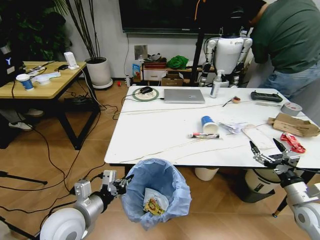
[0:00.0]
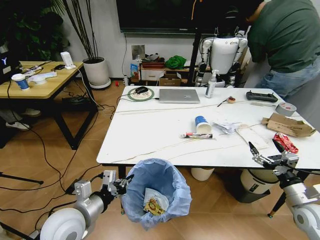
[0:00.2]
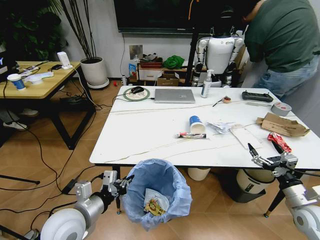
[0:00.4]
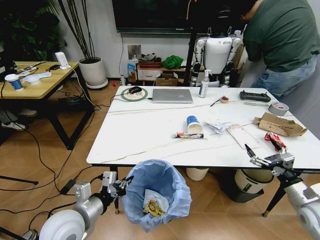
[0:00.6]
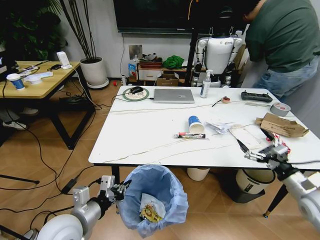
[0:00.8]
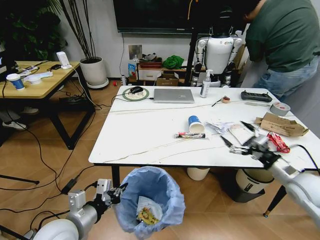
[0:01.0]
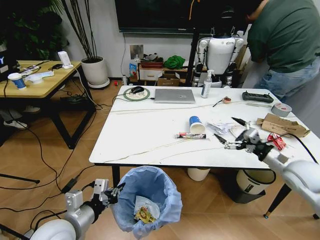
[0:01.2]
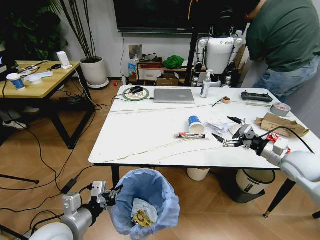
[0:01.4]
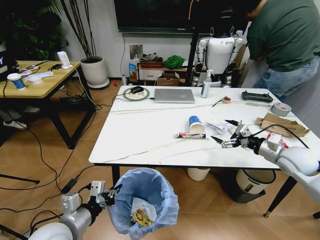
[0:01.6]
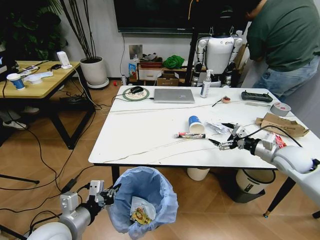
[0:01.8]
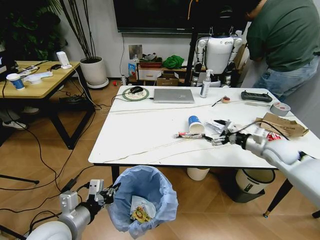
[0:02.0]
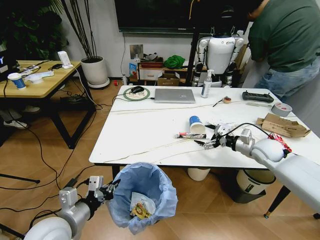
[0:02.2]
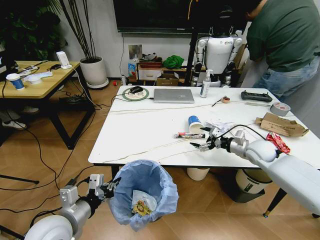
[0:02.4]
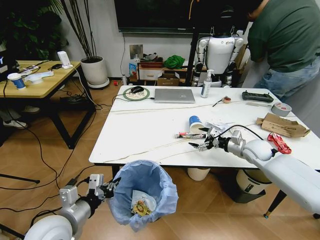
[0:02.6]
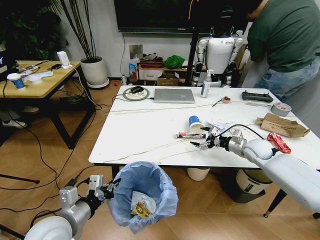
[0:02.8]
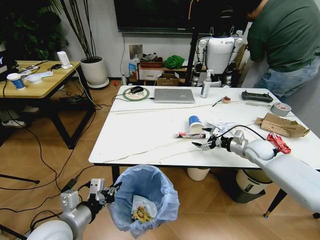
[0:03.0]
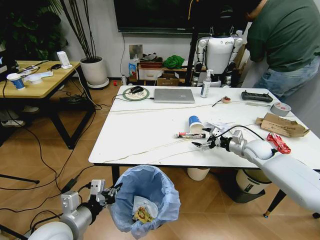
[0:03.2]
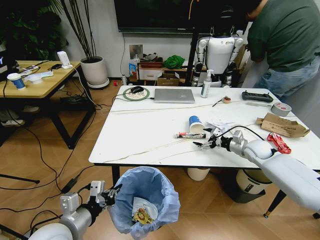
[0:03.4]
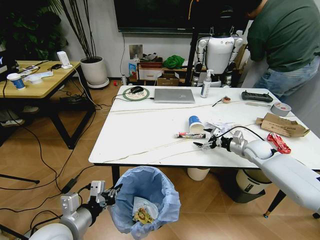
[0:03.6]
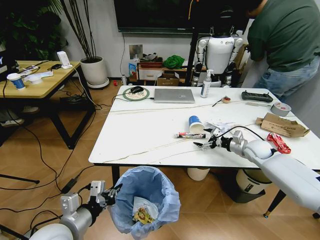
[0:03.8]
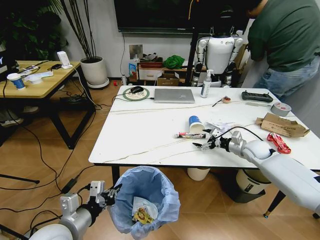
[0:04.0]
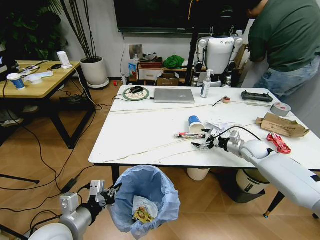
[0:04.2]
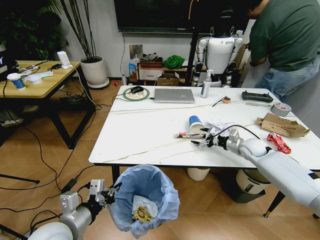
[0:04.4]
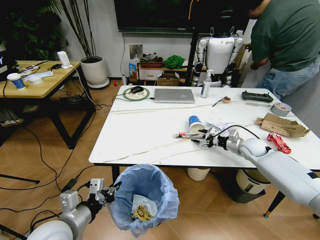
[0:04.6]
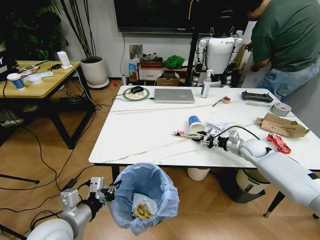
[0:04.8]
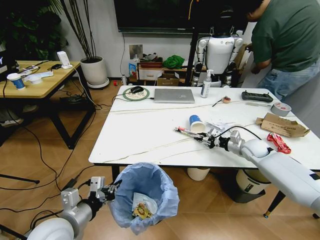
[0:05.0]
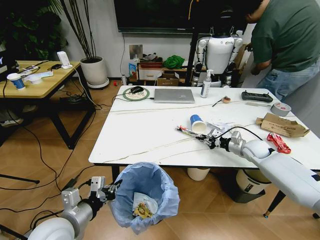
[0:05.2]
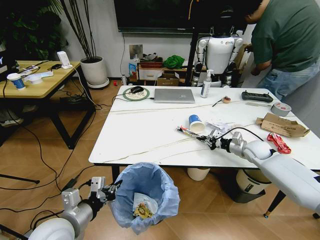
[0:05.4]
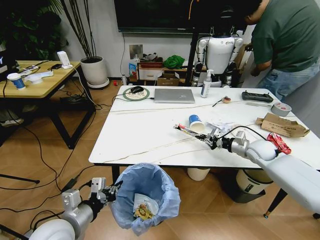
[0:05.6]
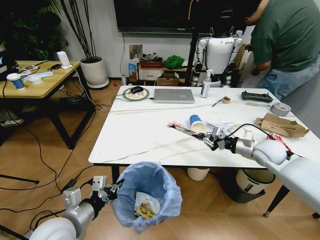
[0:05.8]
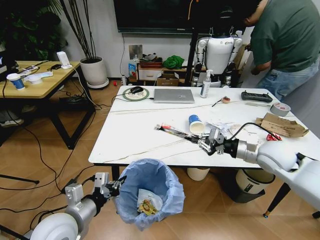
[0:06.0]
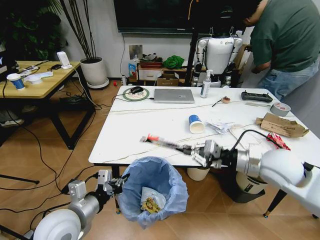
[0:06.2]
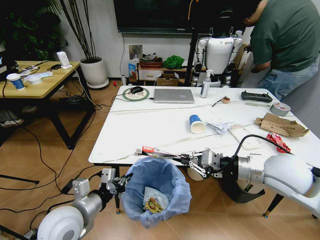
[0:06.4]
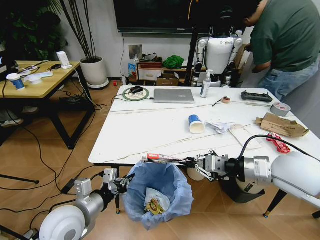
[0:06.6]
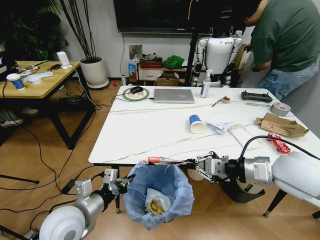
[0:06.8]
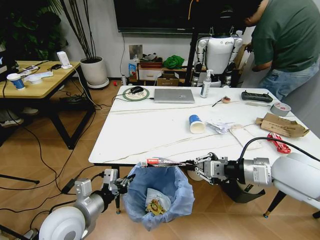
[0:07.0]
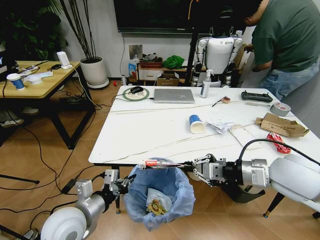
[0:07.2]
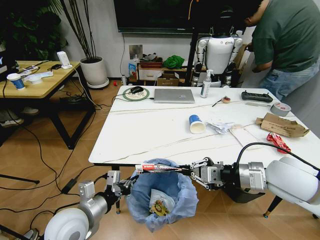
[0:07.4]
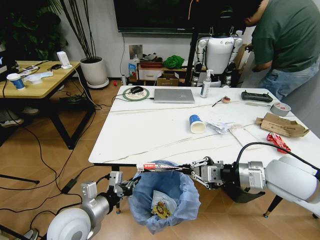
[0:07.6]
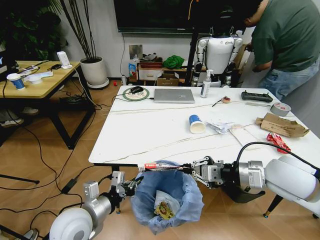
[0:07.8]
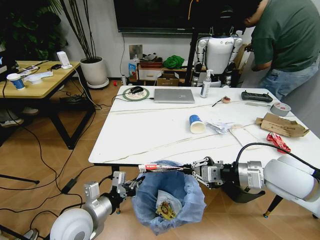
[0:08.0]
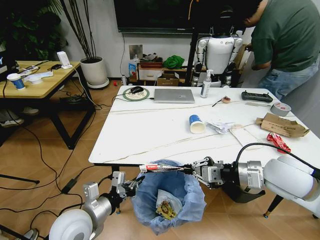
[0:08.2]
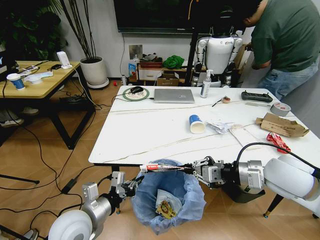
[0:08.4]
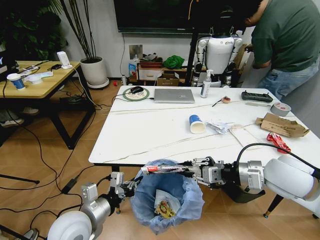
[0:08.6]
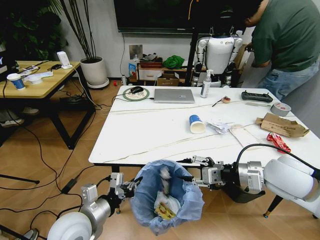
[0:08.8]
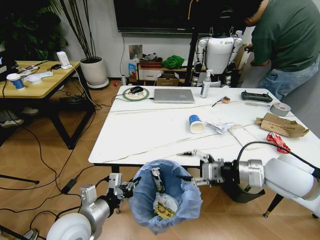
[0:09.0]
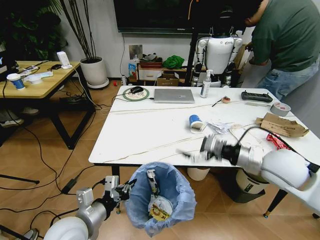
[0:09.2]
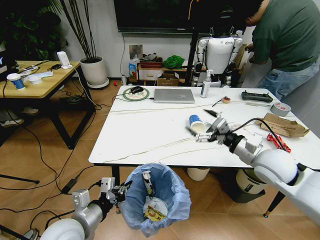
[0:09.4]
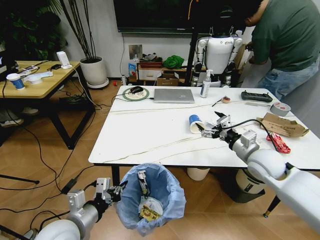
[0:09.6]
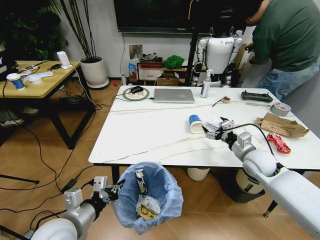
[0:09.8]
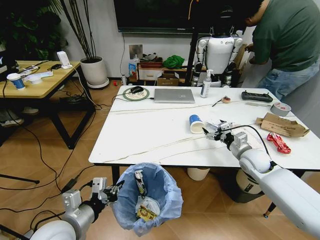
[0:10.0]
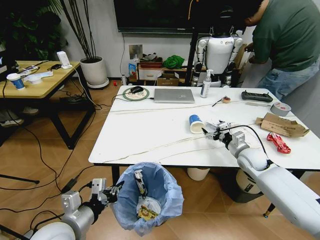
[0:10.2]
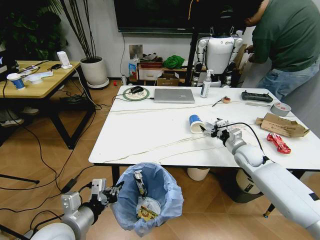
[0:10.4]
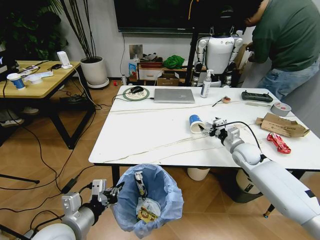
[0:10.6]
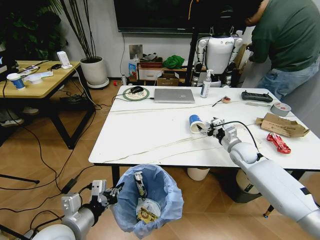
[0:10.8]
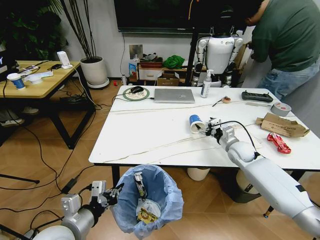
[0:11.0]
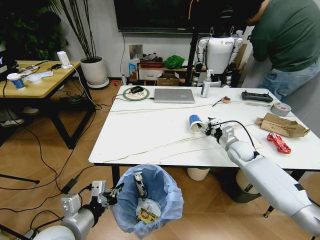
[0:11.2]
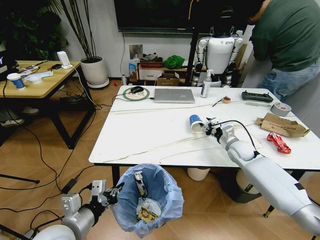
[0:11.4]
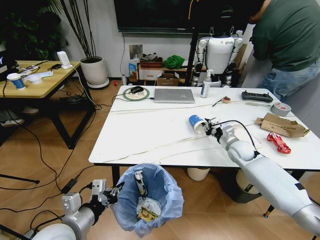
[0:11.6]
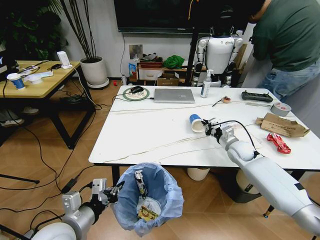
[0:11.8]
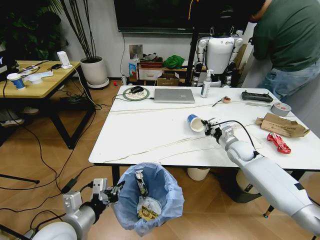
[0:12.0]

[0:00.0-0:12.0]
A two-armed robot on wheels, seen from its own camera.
Task of the whole recording: Pick up the trash bin and place the trash from the table into it.
0:00.0 to 0:01.6: The right gripper is displaced forward and upward by some 15 cm.
0:01.6 to 0:03.0: The right gripper moves forward and downward, some 10 cm.
0:03.0 to 0:04.4: There are only small adjustments of the grippers.
0:04.4 to 0:06.0: The right gripper heads upward and backward, covering about 20 cm, and closes.
0:06.0 to 0:07.6: The right gripper shifts some 10 cm backward.
0:07.6 to 0:09.0: The right gripper opens its fingers.
0:09.0 to 0:10.4: The right gripper is displaced forward and downward by approximately 20 cm.
0:10.4 to 0:12.0: The right gripper closes up.

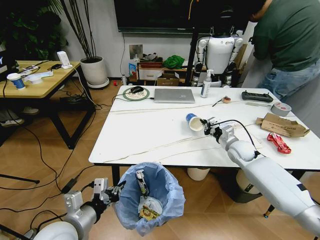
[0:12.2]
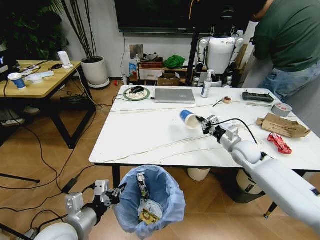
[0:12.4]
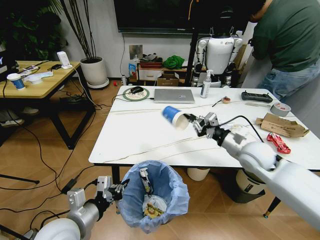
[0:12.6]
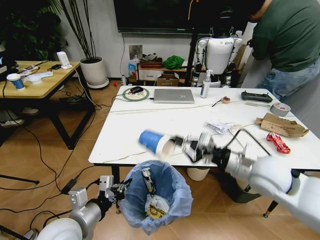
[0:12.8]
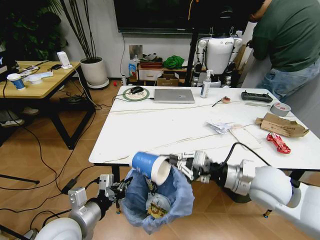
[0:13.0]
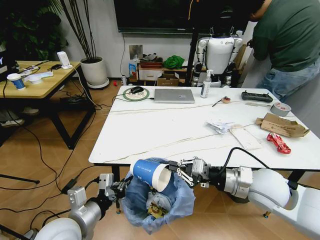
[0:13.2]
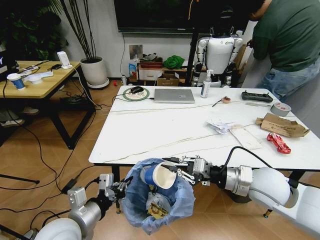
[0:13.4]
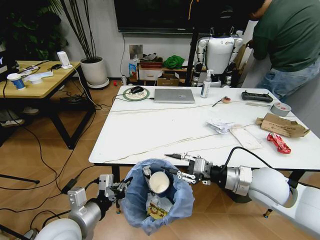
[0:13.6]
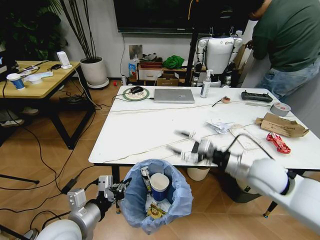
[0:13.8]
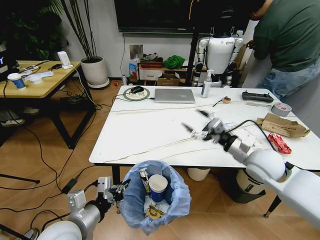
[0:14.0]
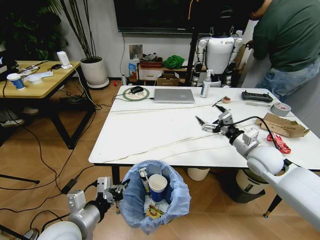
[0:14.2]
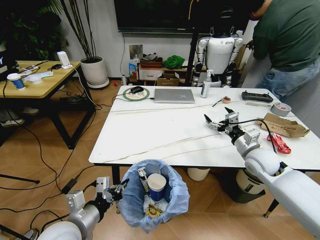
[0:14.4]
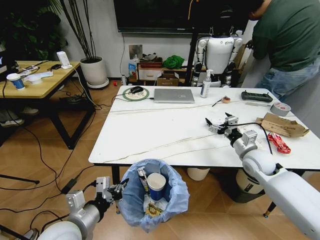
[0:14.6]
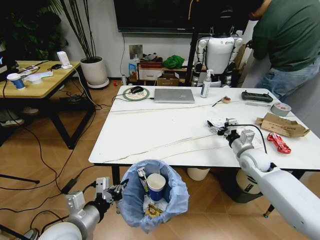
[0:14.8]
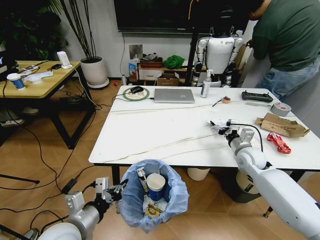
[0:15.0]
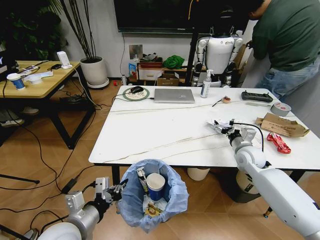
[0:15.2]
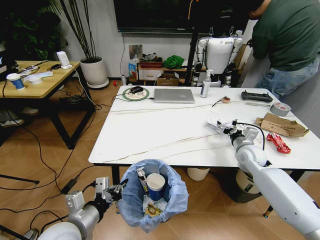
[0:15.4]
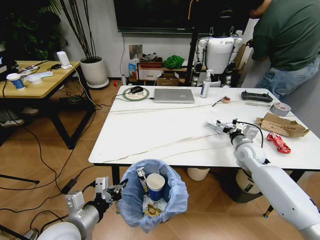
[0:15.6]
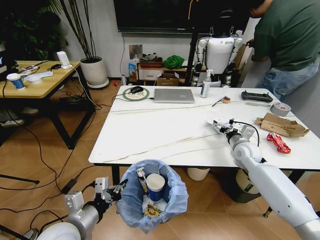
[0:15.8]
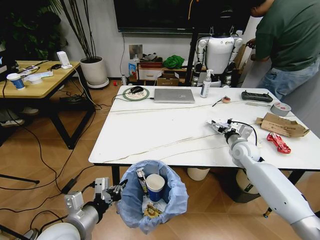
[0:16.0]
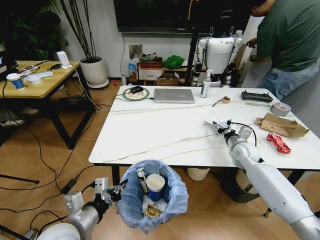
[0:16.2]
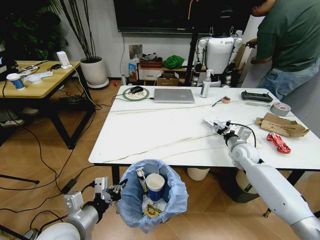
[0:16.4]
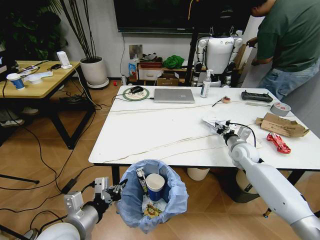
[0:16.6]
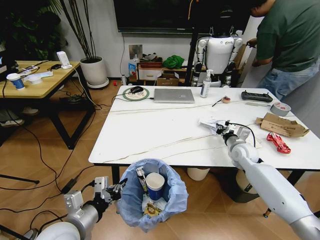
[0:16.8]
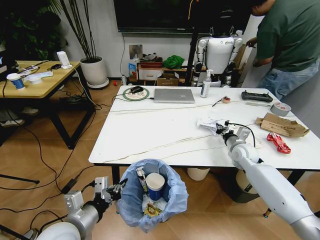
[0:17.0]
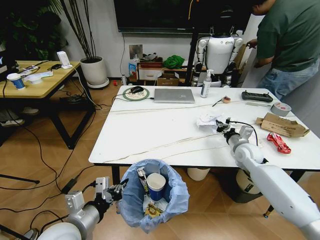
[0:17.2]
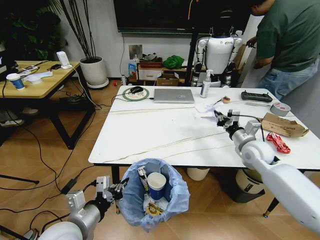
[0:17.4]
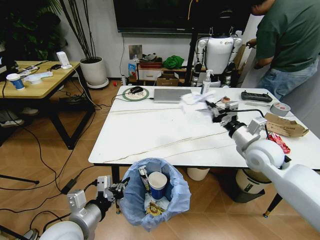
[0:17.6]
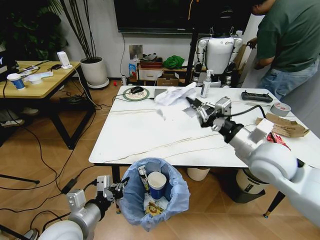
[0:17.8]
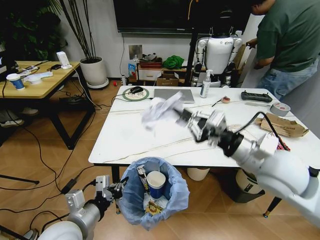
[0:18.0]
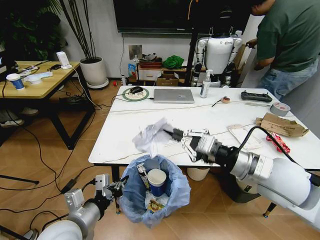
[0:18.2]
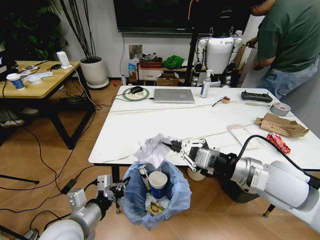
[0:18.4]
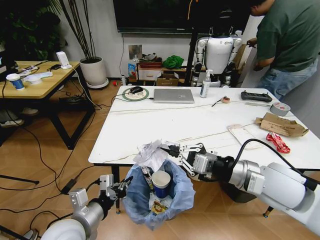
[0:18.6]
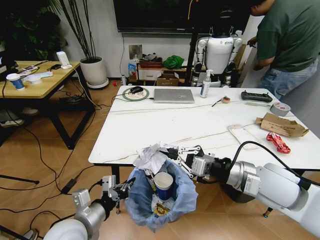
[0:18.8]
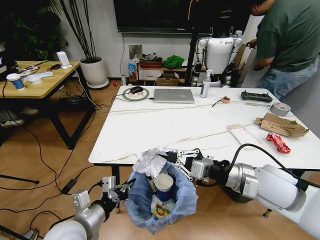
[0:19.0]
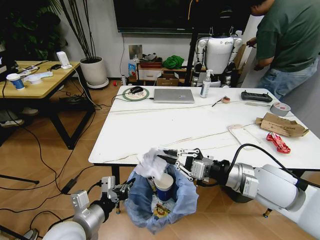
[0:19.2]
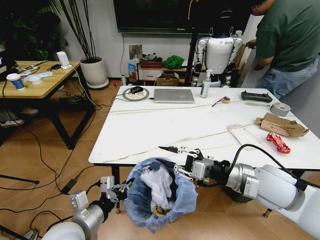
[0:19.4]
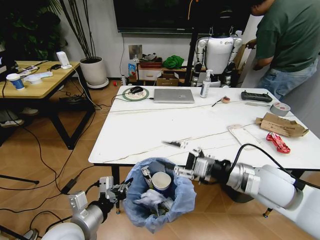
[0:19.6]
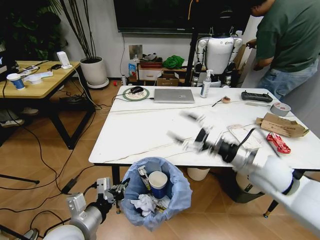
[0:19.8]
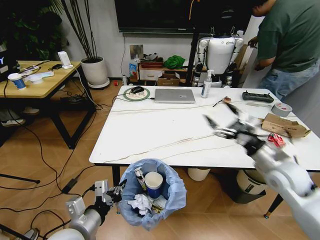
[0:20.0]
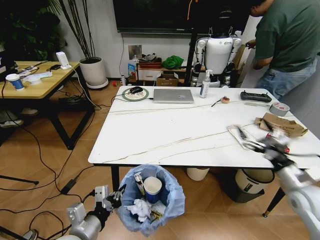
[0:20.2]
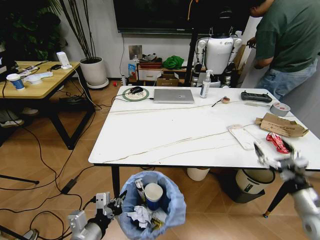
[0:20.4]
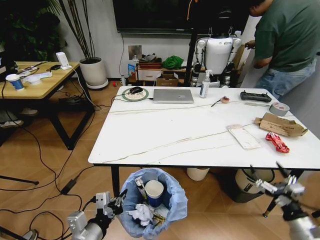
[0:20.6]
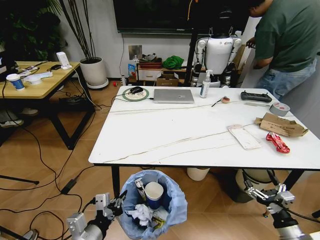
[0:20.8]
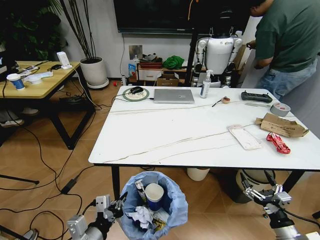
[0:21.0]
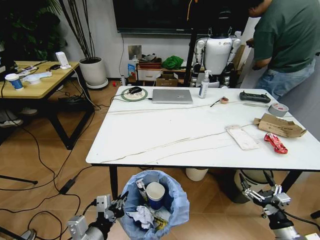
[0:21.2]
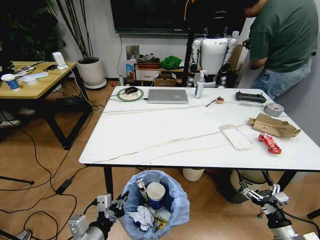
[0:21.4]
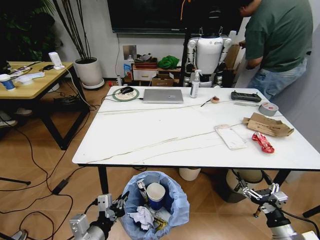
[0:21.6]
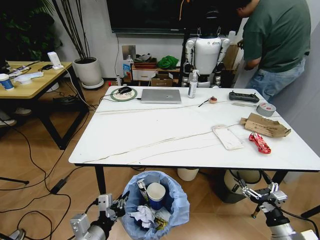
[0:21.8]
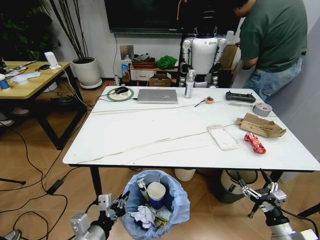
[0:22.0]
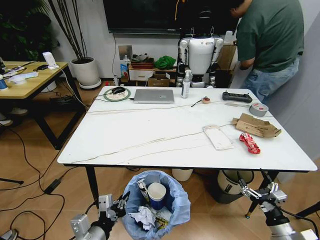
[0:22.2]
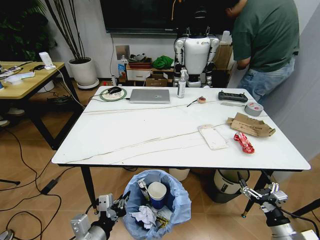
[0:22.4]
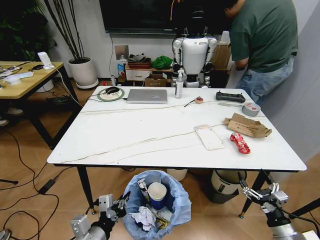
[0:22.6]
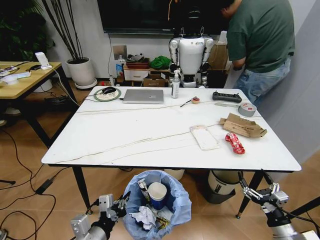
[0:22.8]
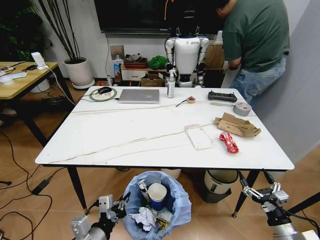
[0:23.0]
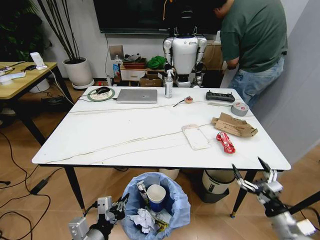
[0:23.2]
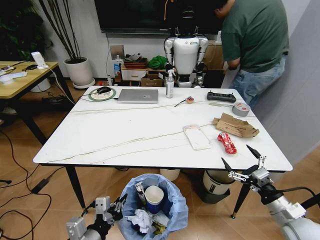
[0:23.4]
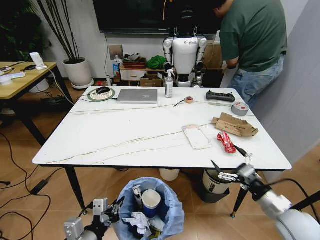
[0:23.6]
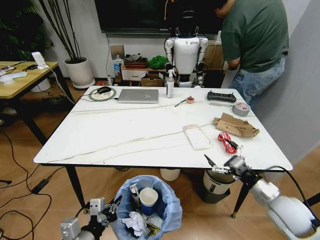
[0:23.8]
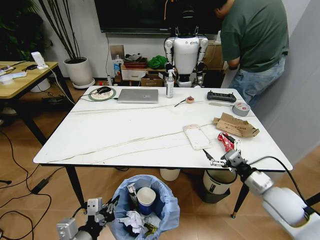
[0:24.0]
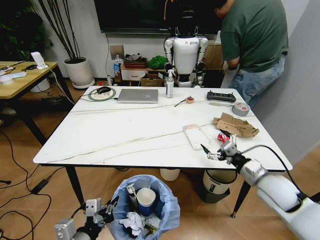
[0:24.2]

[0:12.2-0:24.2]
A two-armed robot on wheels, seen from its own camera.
Task of the whole recording: Pick up the trash bin and place the trash from the table into it.
0:12.2 to 0:13.8: The right gripper goes approximately 20 cm backward and upward, and opens up.
0:13.8 to 0:15.2: The right gripper travels forward, downward and to the right by about 15 cm, and opens its fingers.
0:15.2 to 0:16.6: The right gripper closes.
0:16.6 to 0:18.2: The right gripper goes approximately 30 cm backward, upward and to the left.
0:18.2 to 0:19.8: The right gripper shifts roughly 5 cm downward, and opens up.
0:19.8 to 0:21.2: The right gripper travels downward, backward and to the right by approximately 30 cm. The left gripper moves roughly 5 cm.
0:22.6 to 0:24.2: The right gripper is displaced forward and upward by roughly 20 cm.
